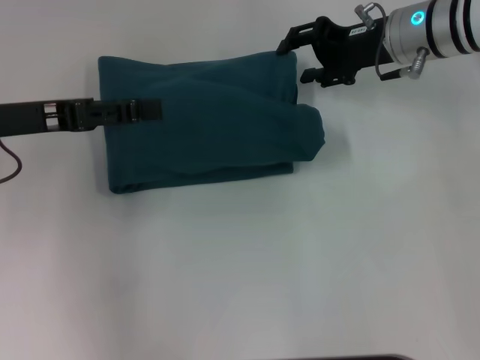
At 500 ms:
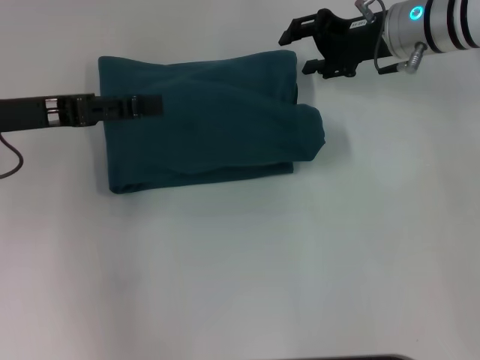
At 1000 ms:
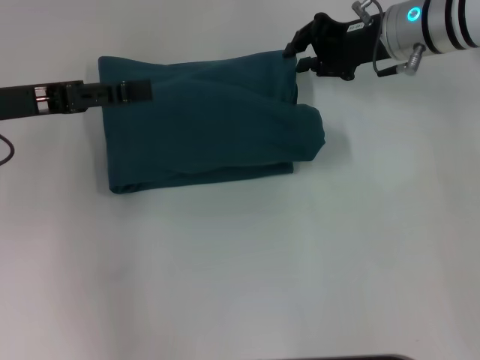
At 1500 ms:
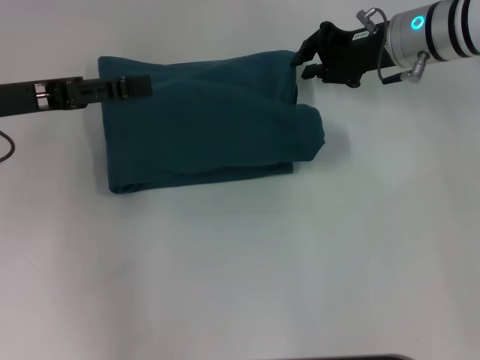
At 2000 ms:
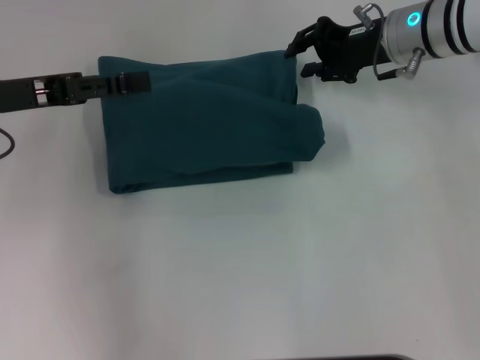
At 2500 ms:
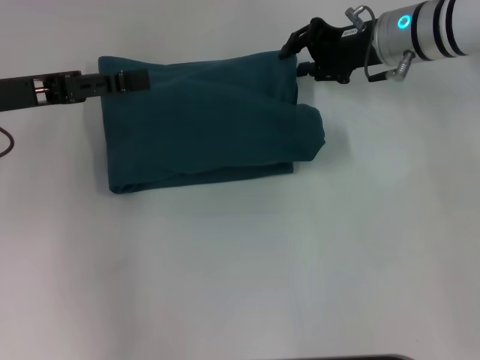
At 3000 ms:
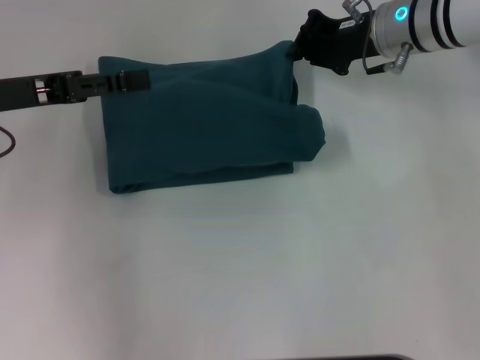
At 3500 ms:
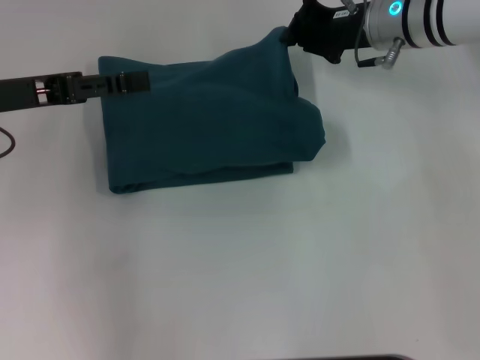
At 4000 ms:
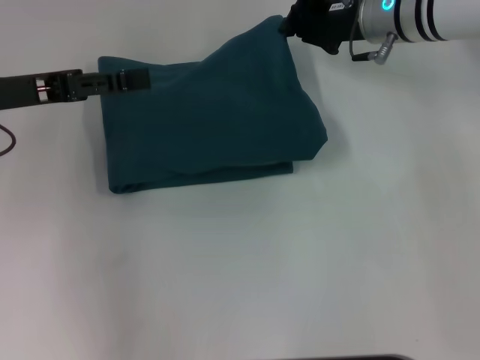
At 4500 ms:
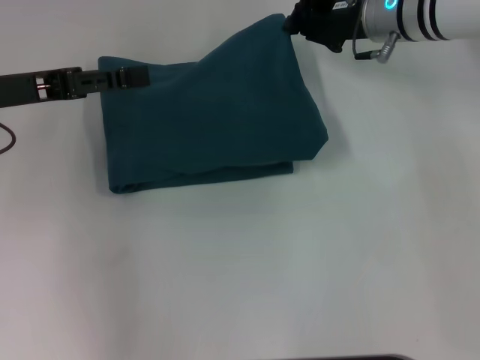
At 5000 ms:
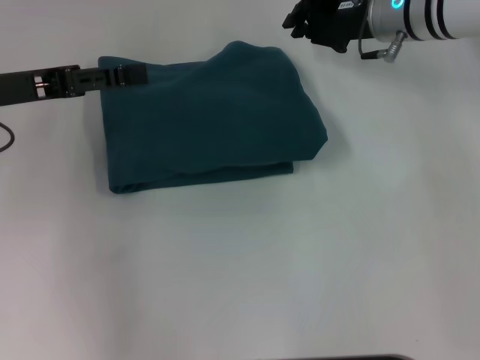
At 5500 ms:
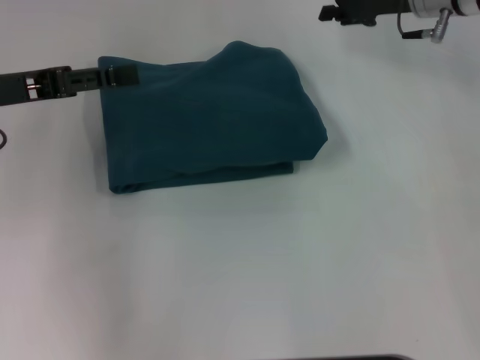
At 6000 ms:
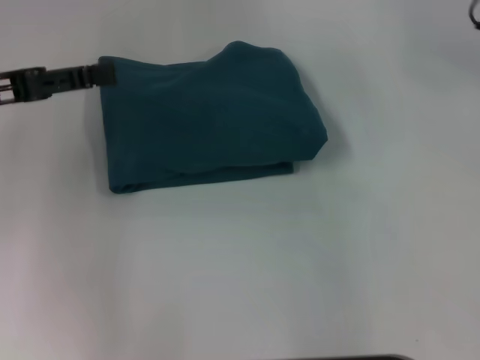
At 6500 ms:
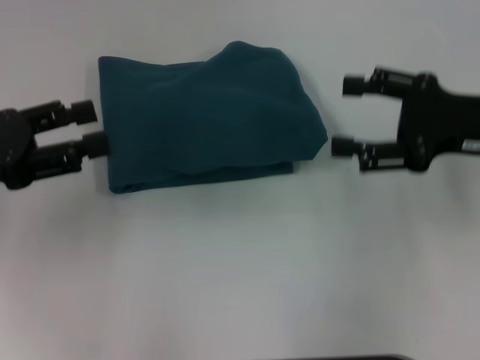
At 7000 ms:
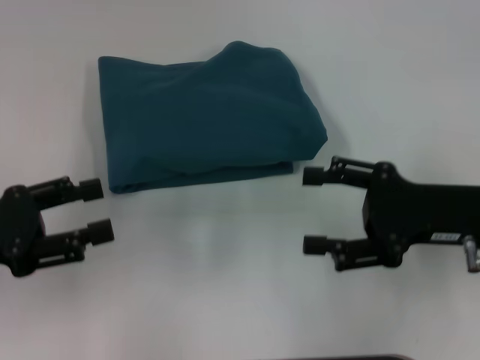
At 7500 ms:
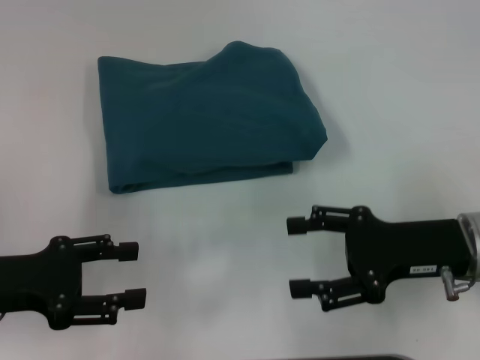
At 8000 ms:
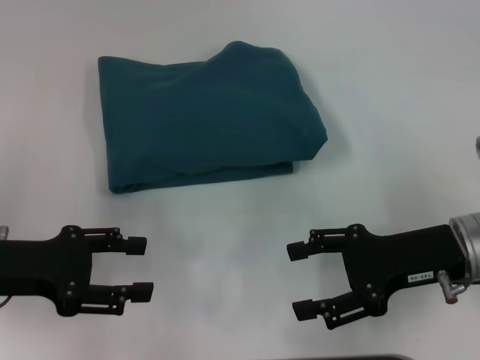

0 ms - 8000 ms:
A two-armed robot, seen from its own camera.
0 ms - 2000 ms: Both grippers stay about where they are.
2000 ms - 4000 ms: The right gripper closes its fingers.
4000 ms - 6000 ms: The right gripper shifts some 15 cm to the right, backward and upward, and opens.
6000 ms - 8000 ms: The right gripper heads backward and downward, covering about 20 cm; the left gripper shifts some 10 cm downward and backward.

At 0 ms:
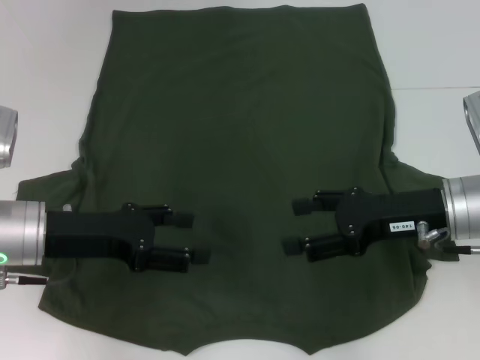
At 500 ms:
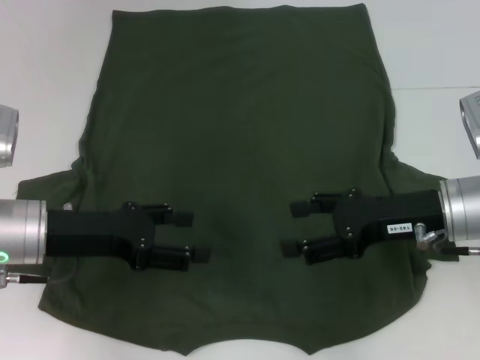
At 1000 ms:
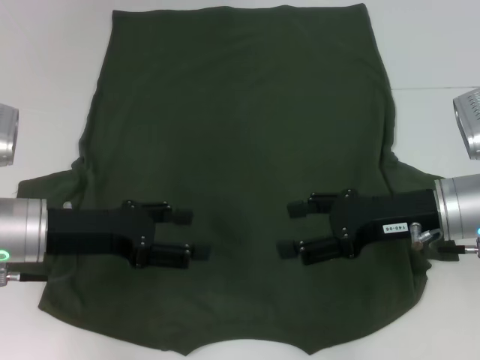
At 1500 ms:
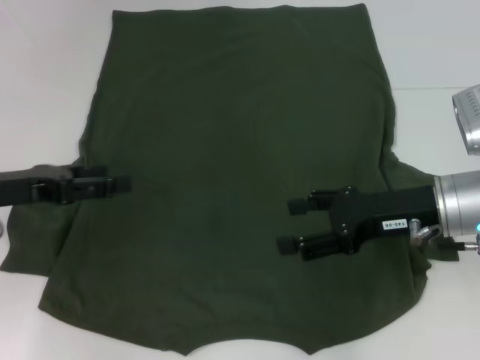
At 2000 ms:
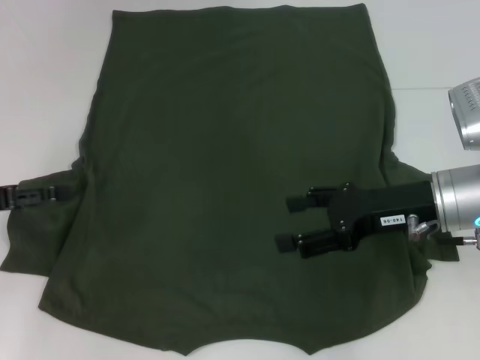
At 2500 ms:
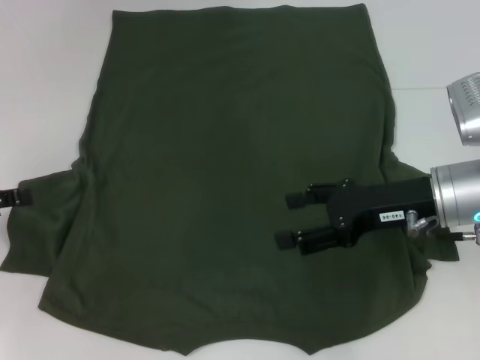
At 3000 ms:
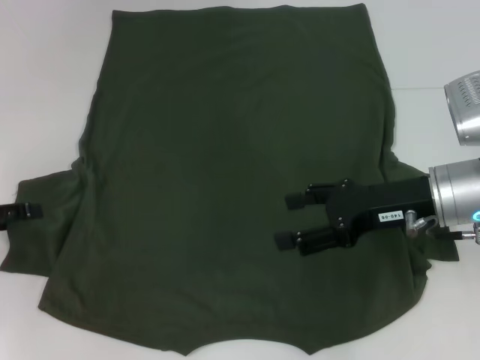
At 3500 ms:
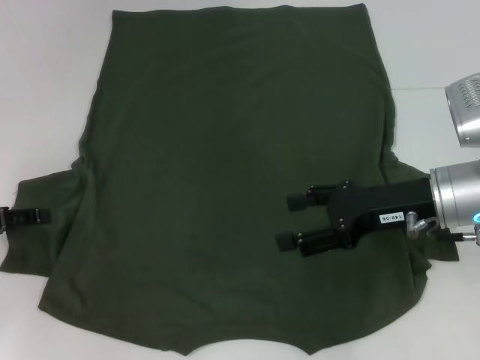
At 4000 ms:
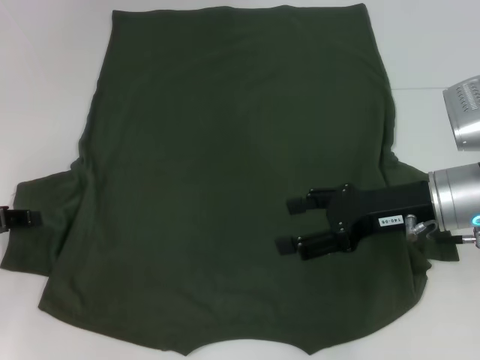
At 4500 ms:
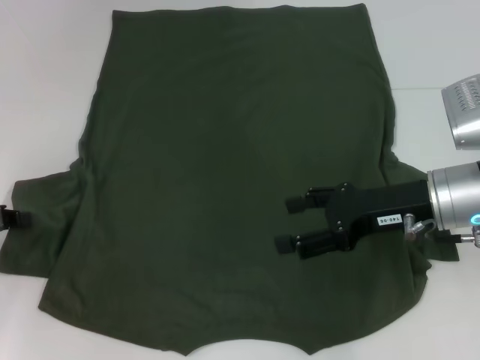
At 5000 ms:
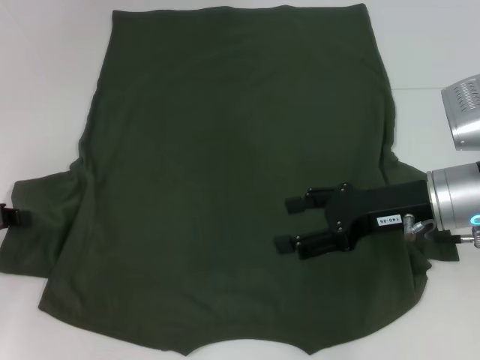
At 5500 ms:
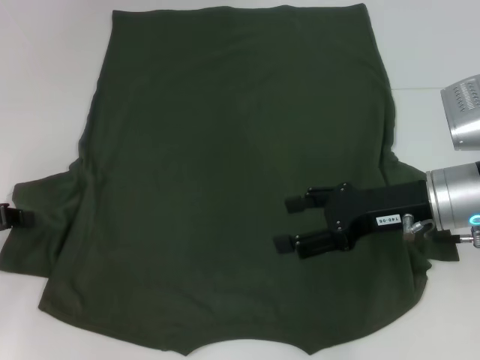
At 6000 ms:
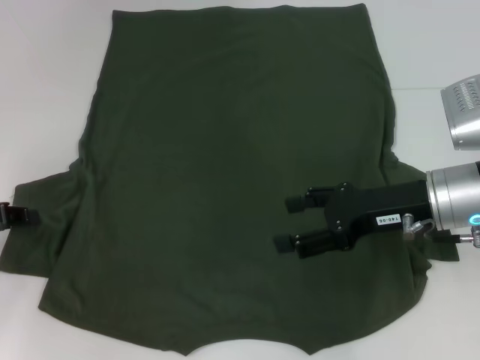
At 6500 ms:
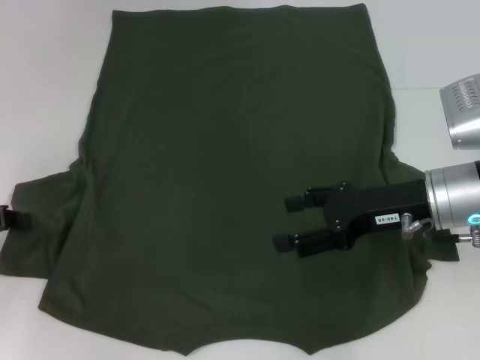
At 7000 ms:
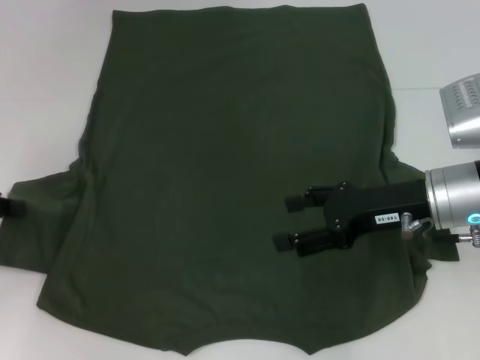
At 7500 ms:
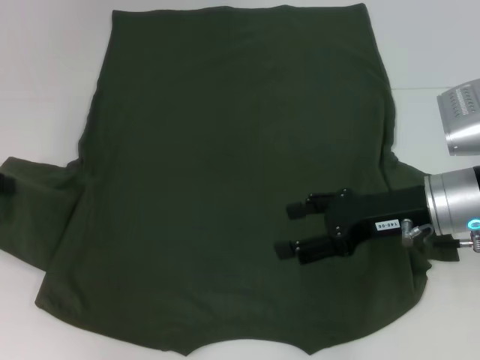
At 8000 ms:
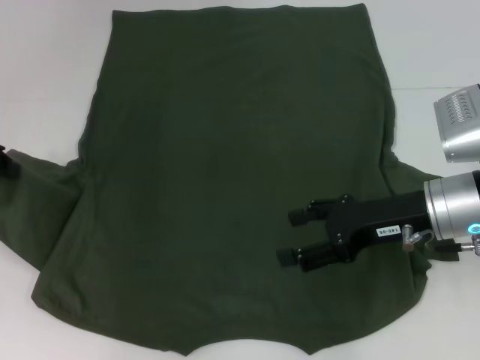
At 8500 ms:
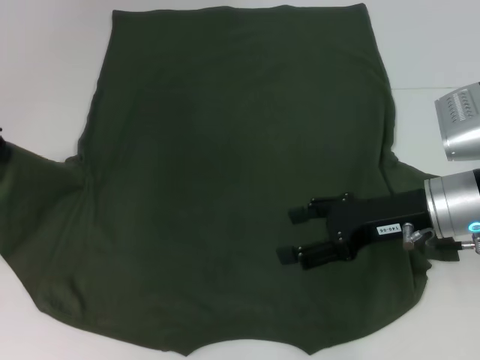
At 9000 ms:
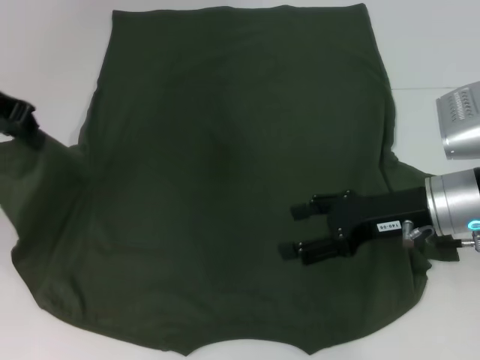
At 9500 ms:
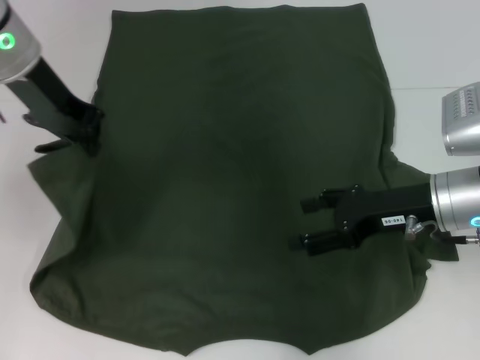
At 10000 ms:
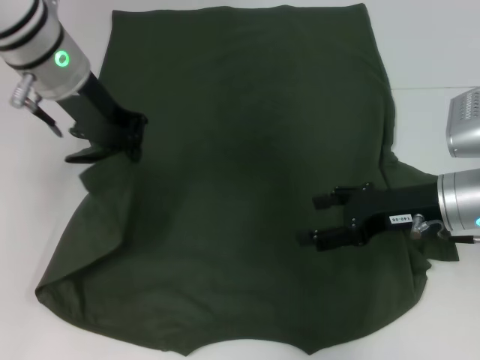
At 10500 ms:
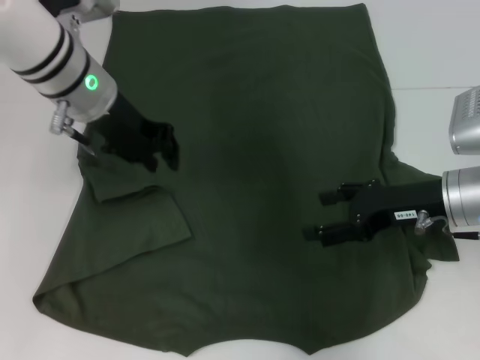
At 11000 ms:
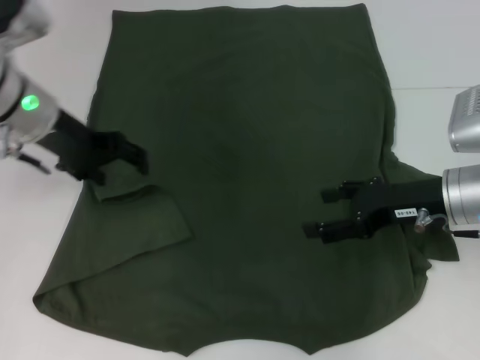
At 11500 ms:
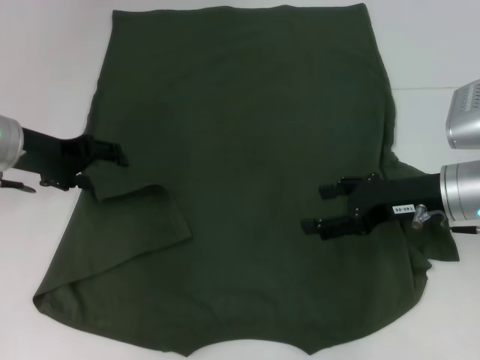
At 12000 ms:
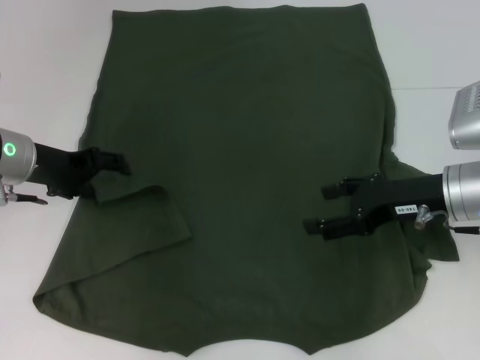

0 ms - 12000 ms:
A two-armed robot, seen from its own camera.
0 ms - 2000 ms: The left gripper heads to the left, covering approximately 10 cm.
2000 ms - 4000 ms: The left gripper closes up.
6000 ms - 8000 ms: The left gripper moves upward and forward, roughly 10 cm.
8000 ms - 10000 ms: The left gripper travels to the right by roughly 15 cm.
10000 ms - 12000 ms: The left gripper shifts roughly 15 cm downward and to the left, and opens.

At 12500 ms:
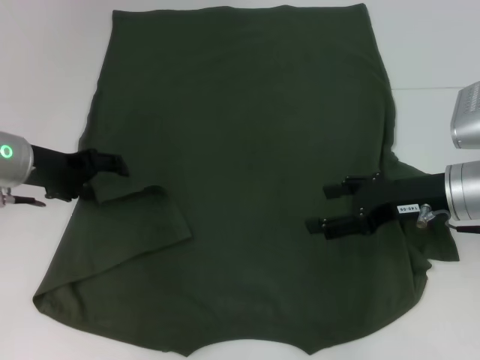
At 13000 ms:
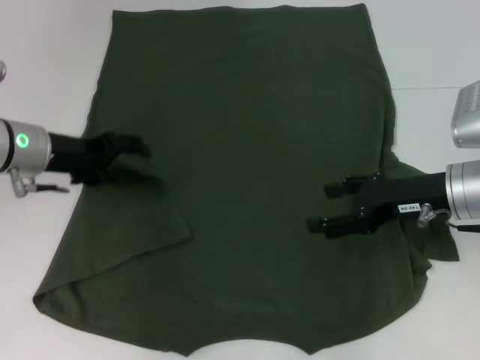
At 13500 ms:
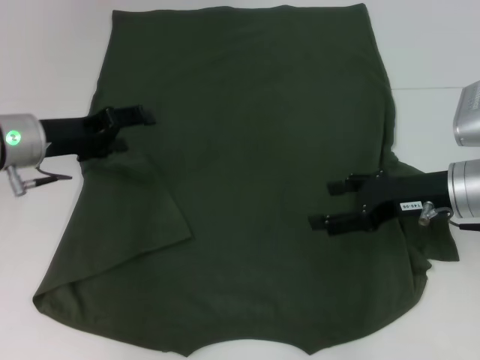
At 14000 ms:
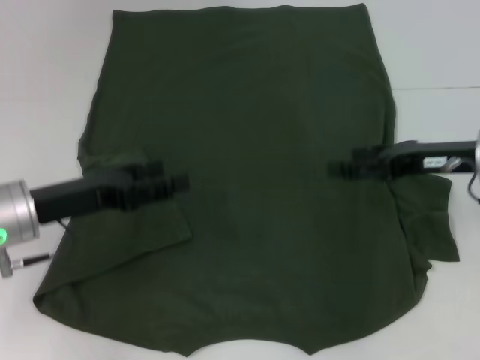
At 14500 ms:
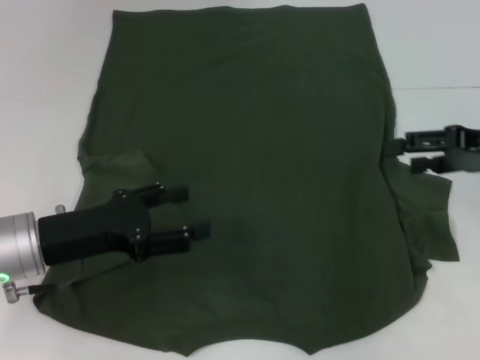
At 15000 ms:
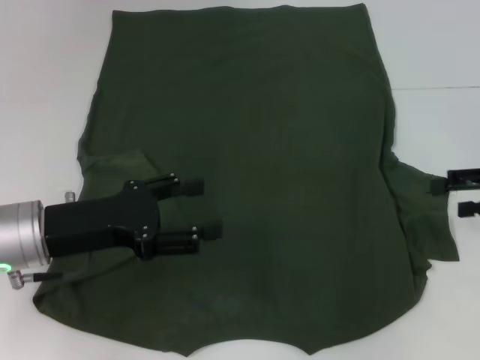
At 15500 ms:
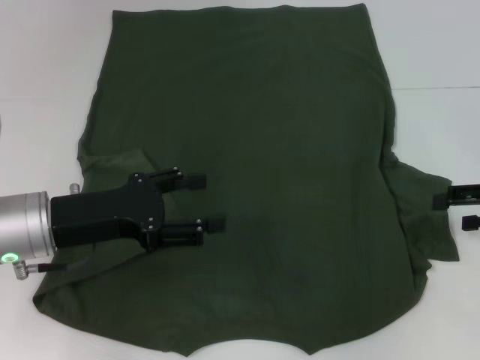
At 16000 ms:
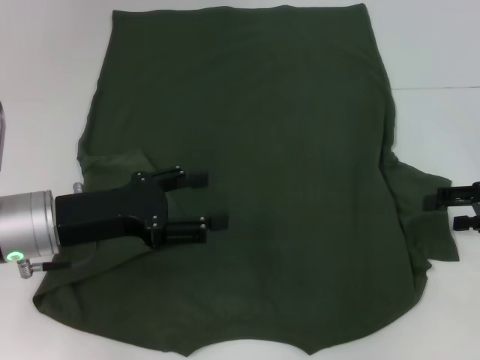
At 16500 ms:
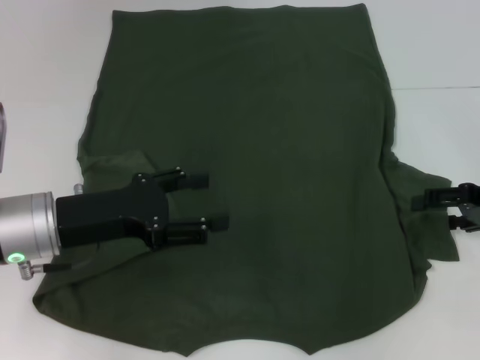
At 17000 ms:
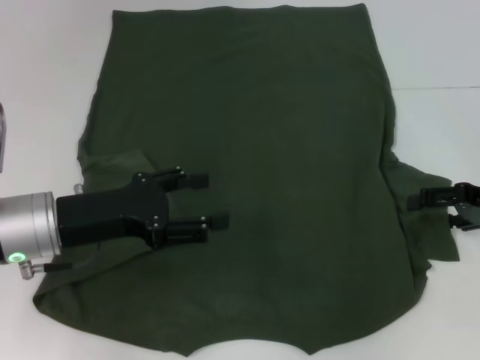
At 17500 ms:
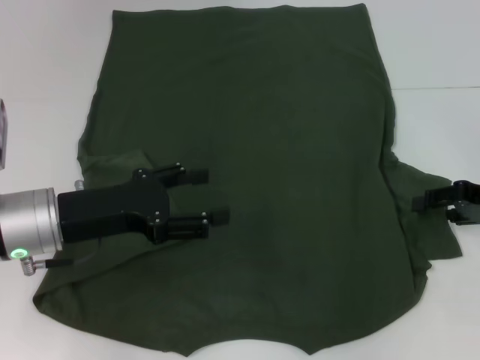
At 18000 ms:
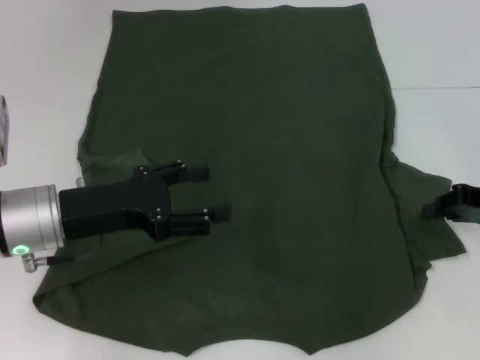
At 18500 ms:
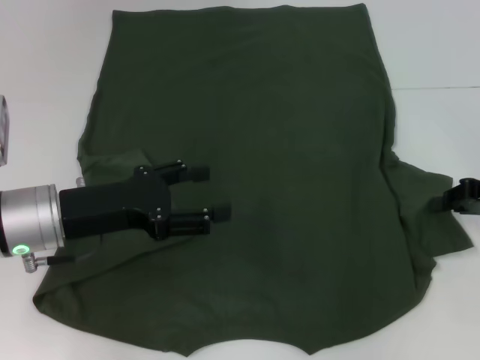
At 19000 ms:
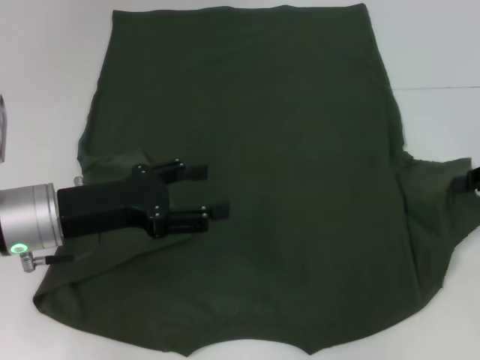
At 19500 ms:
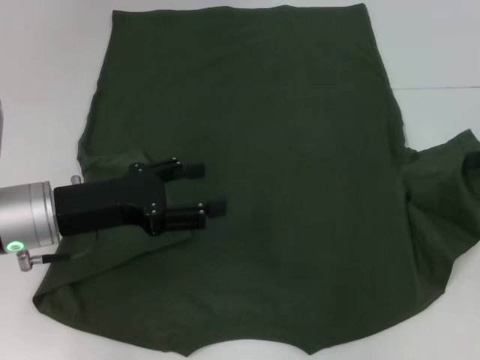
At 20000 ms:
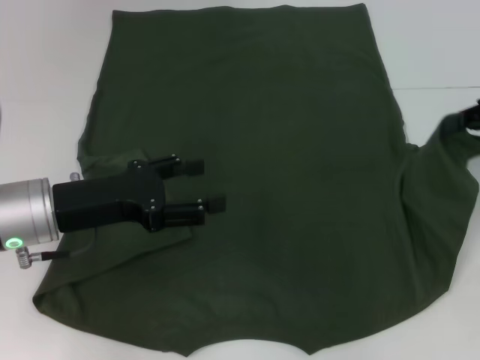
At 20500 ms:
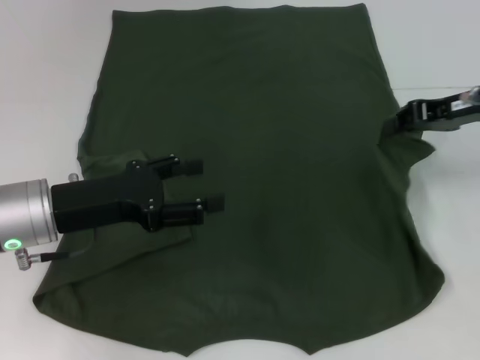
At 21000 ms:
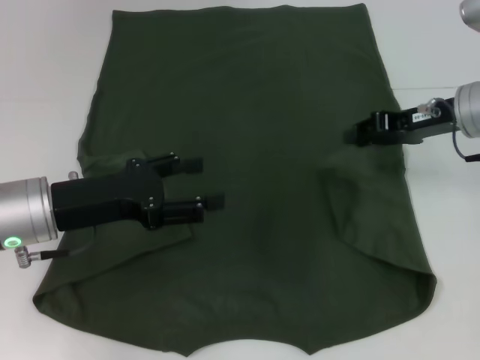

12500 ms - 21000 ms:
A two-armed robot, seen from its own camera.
Step, 12500 ms - 15000 ms: Fold the bottom left sleeve with your left hand.
12500 ms - 14500 ms: The left gripper shifts roughly 10 cm backward. The right gripper is displaced to the right and upward by some 10 cm.
14500 ms - 16500 ms: The right gripper travels downward by roughly 5 cm.
16500 ms - 19000 ms: The right gripper closes.
19000 ms - 21000 ms: The right gripper moves to the left and forward, about 15 cm.
